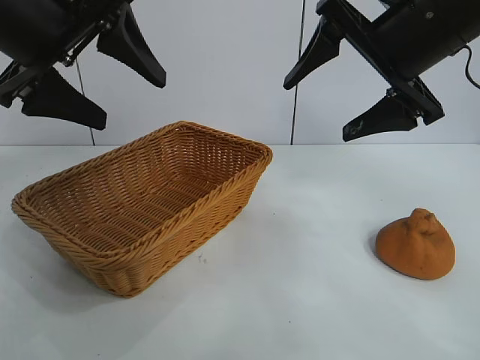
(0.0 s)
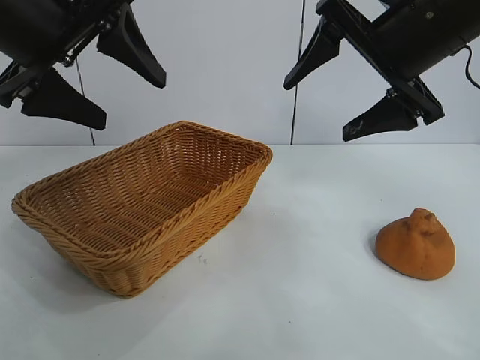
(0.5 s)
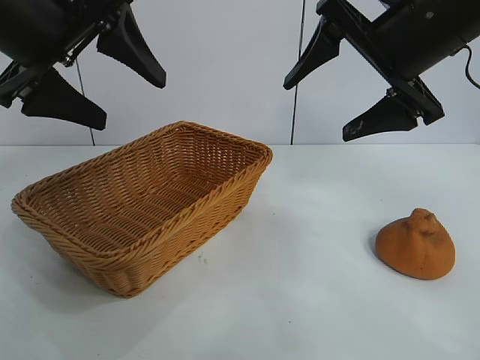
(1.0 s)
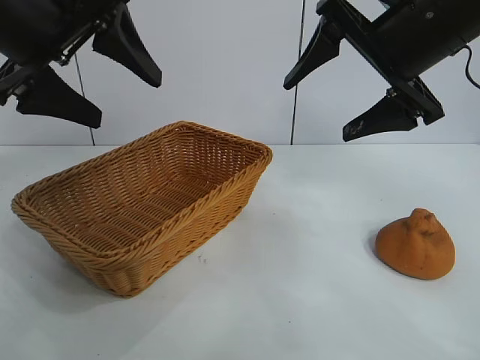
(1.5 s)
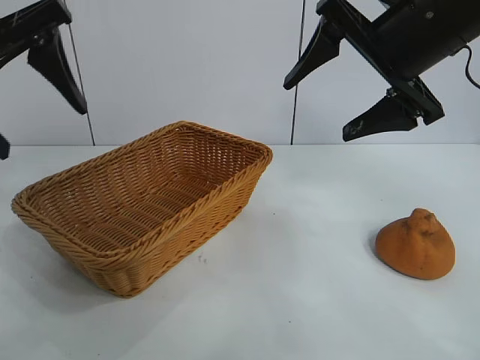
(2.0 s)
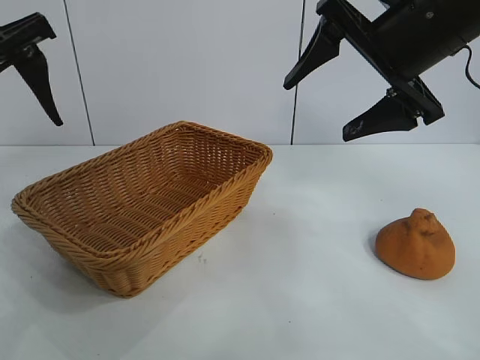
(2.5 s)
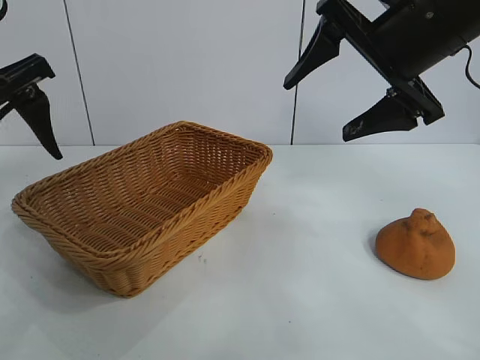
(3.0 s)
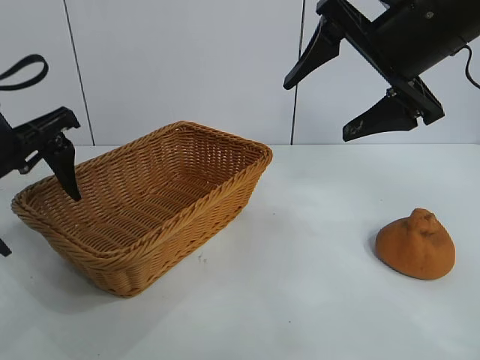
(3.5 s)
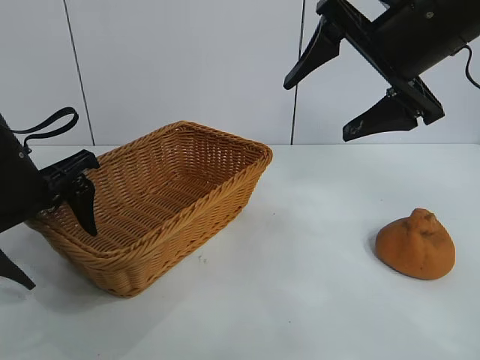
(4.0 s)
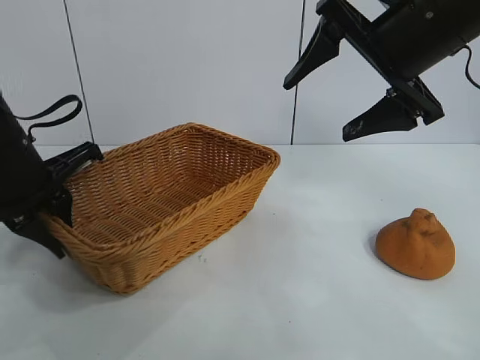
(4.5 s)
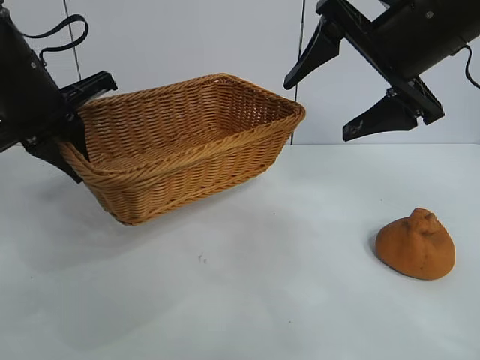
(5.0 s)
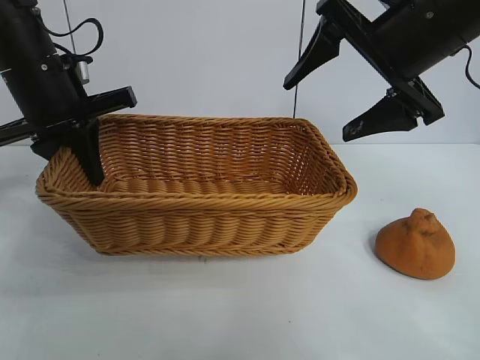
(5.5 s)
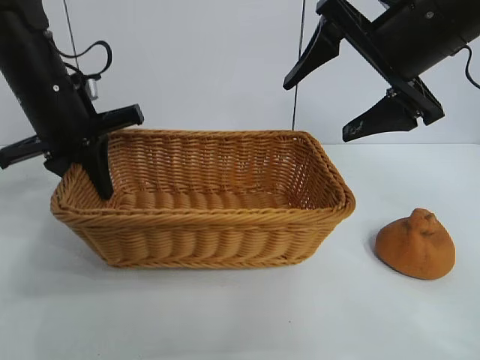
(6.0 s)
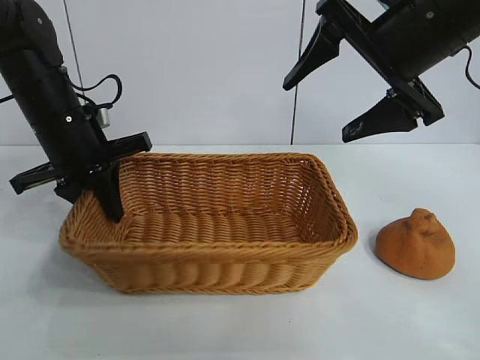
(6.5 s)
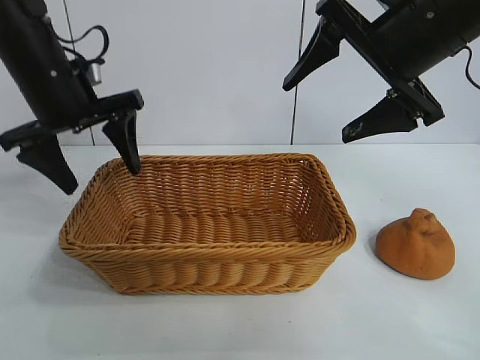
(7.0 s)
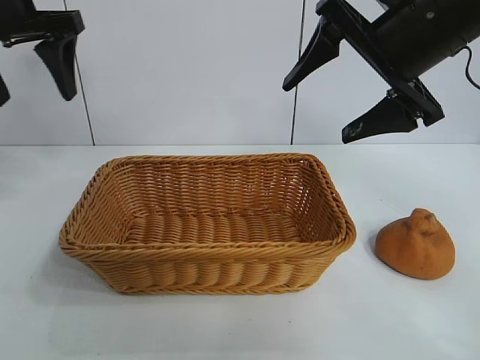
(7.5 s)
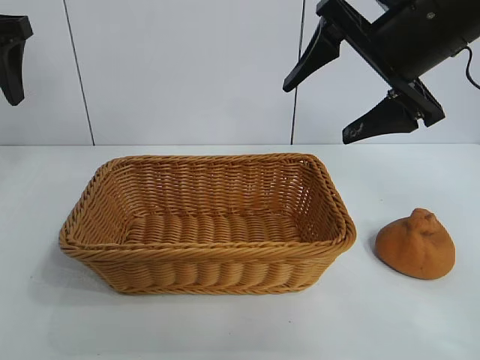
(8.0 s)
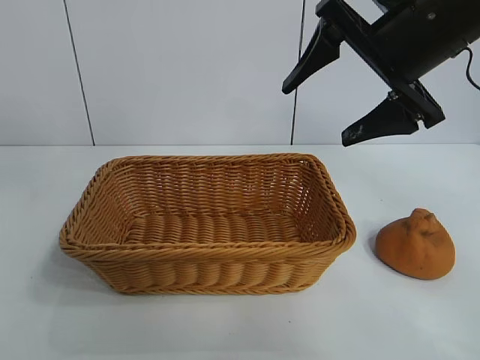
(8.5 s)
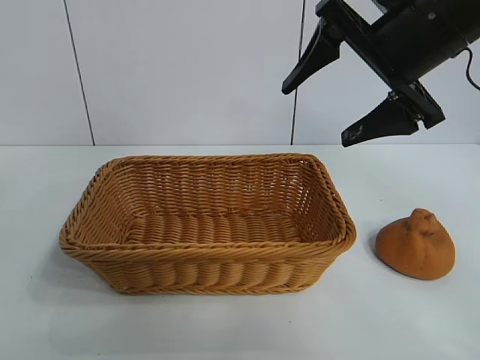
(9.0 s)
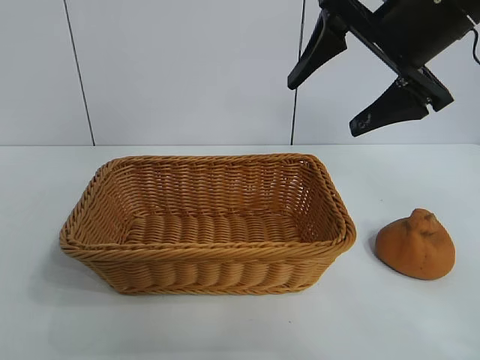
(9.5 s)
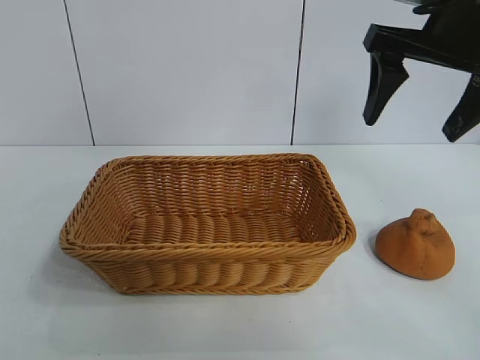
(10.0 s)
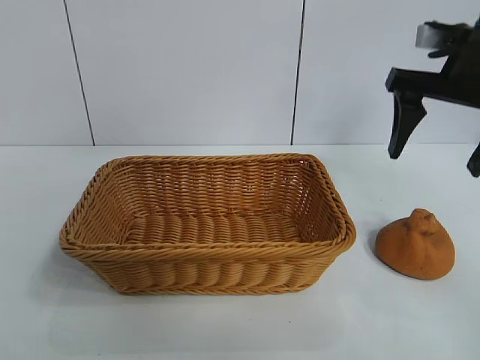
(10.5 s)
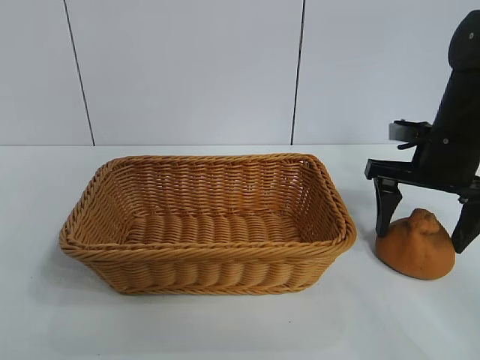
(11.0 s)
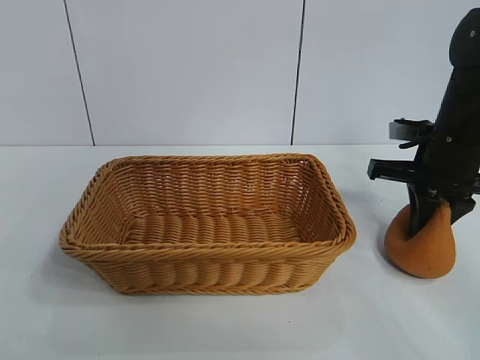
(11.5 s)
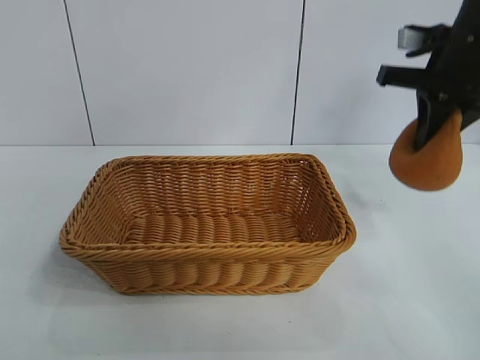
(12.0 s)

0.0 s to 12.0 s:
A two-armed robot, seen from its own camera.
Task of the whole recording: pick up the orange and put it into the basket.
Step, 1.5 to 4.0 s: Grasp the basket with left gripper.
Step, 4.5 to 6.5 s: Place the basket in the center of view with left gripper.
Step, 7.0 to 11.5 s: Grasp the orange with right gripper.

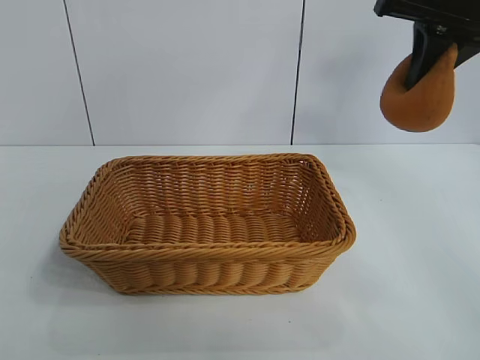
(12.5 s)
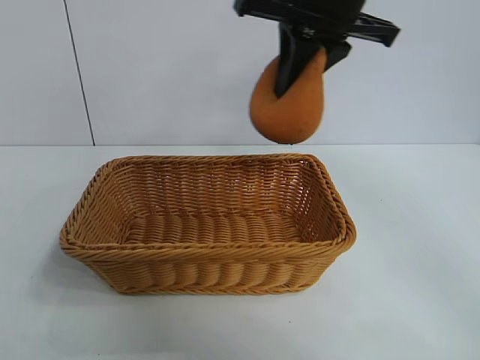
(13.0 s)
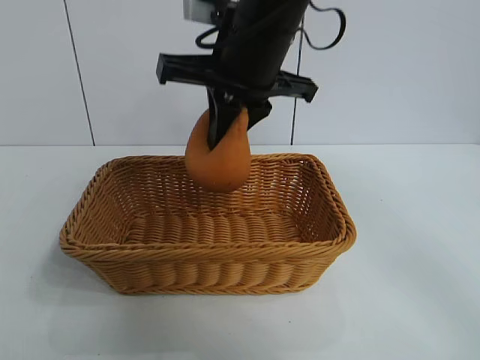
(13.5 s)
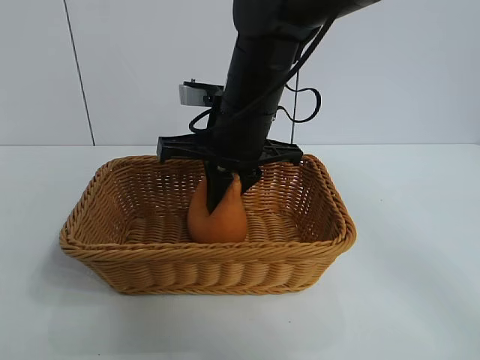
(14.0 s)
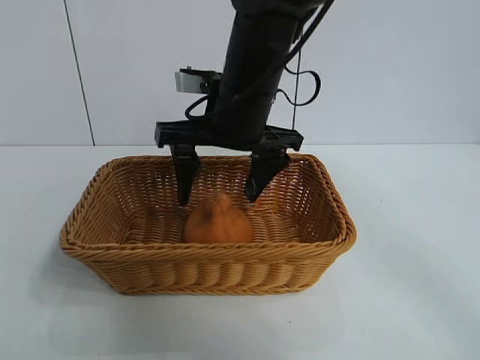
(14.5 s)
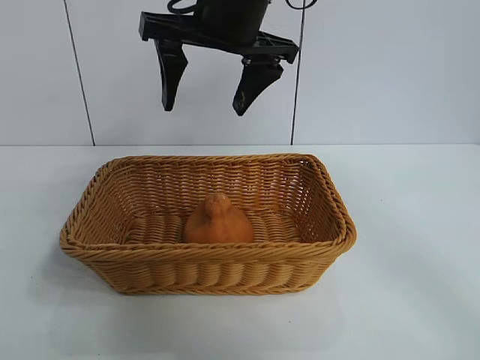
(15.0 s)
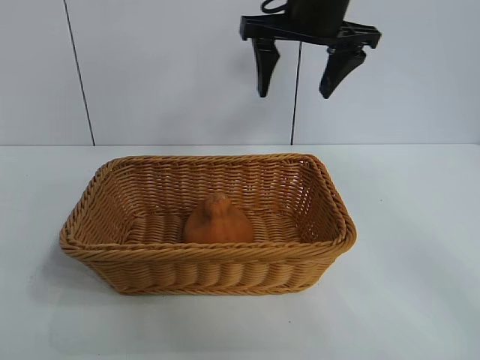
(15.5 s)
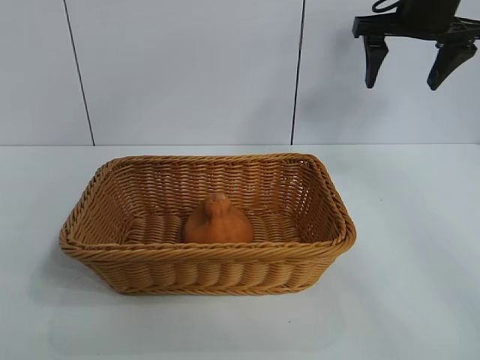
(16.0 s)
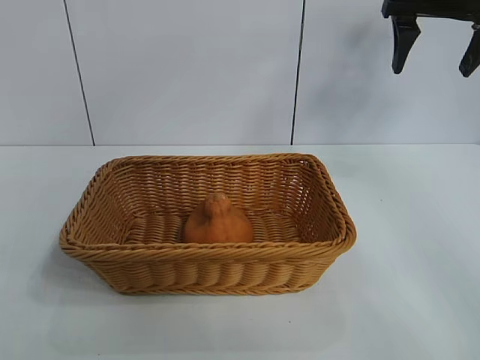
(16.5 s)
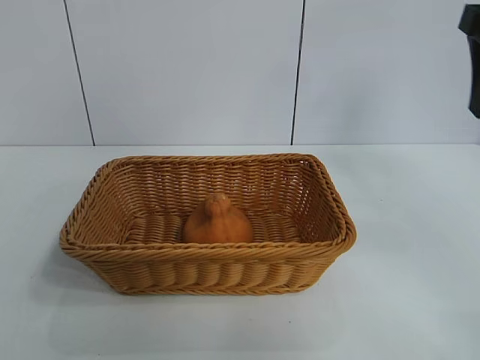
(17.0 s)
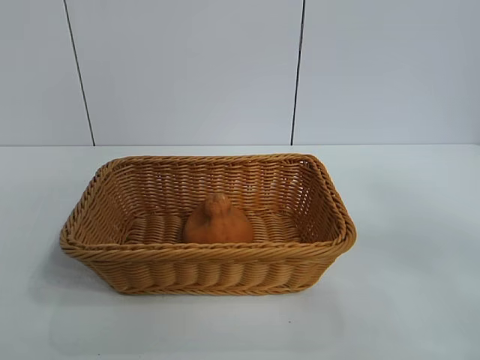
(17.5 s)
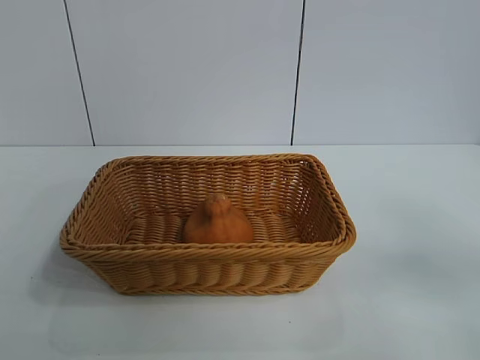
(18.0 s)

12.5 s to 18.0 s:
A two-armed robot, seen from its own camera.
Task of the whole recording: pick up the orange and put it into the basket.
Step, 12.5 to 14.5 s: Place the orange in the basket with right gripper.

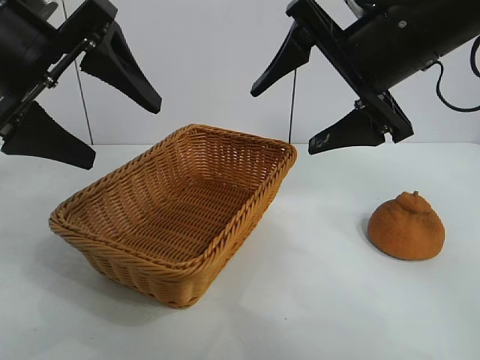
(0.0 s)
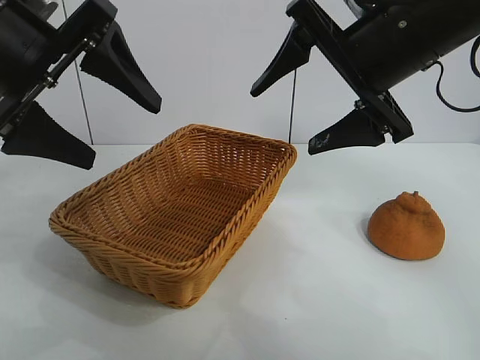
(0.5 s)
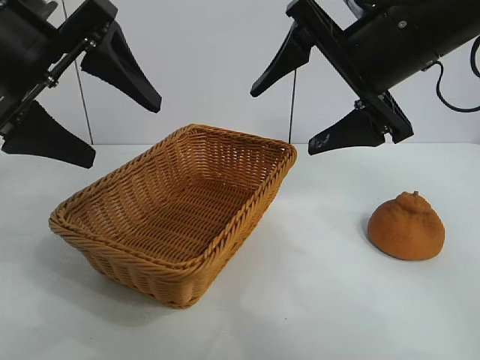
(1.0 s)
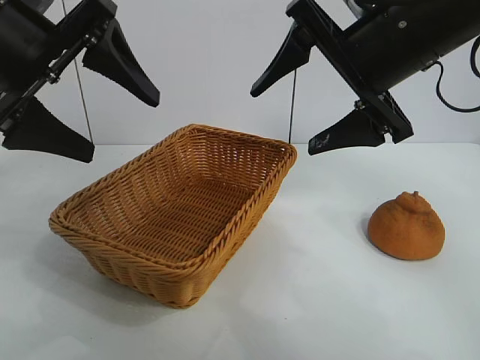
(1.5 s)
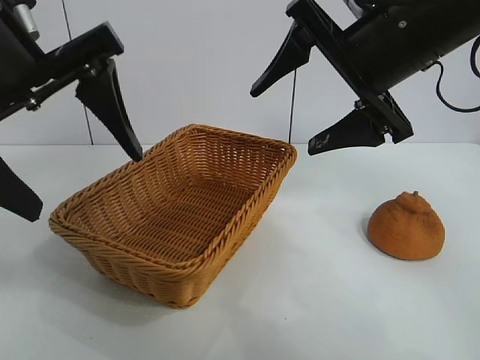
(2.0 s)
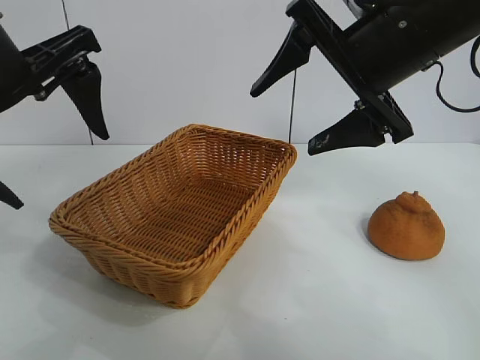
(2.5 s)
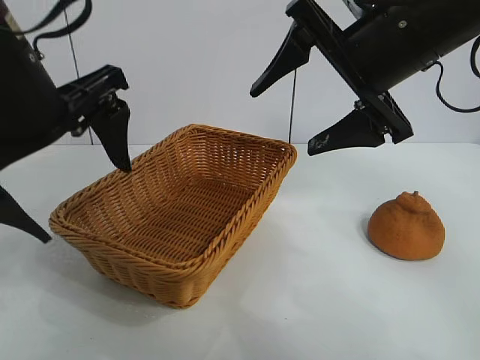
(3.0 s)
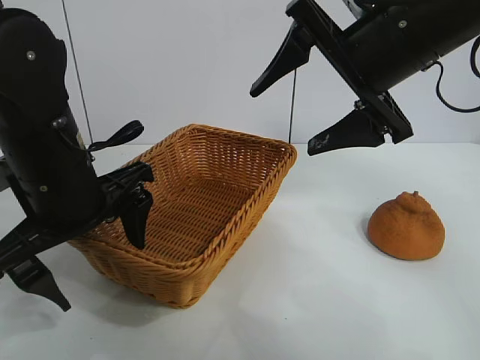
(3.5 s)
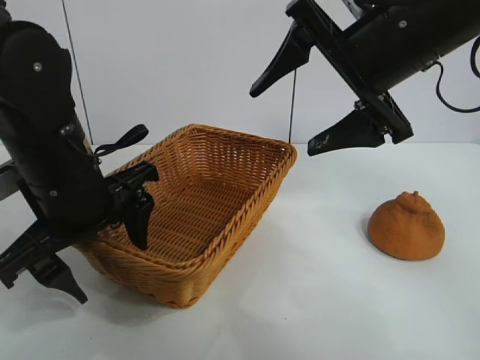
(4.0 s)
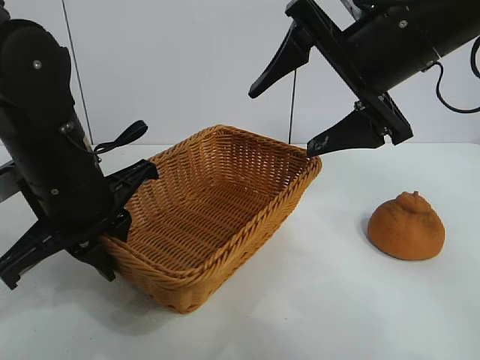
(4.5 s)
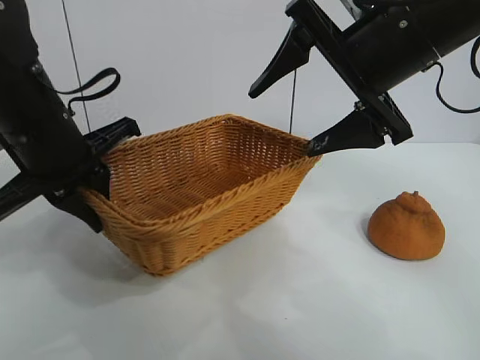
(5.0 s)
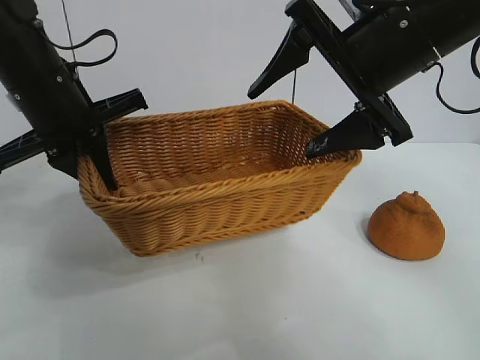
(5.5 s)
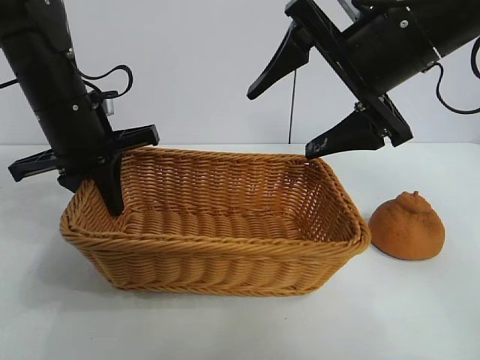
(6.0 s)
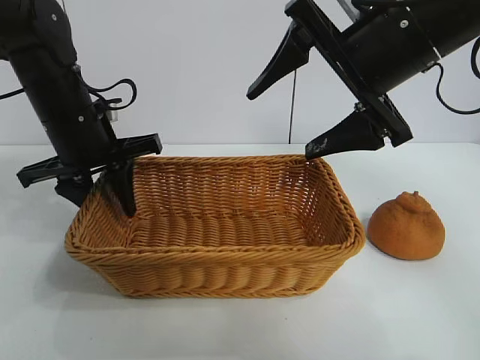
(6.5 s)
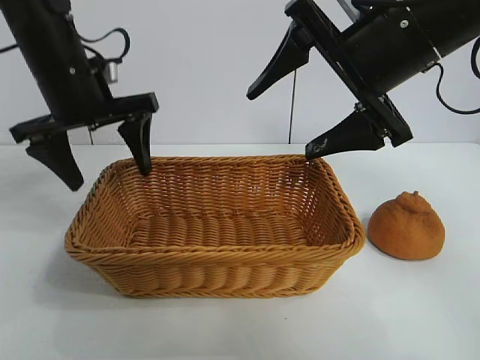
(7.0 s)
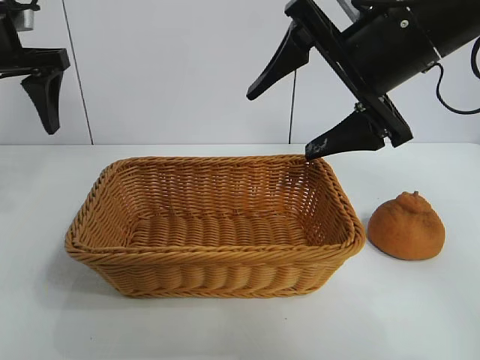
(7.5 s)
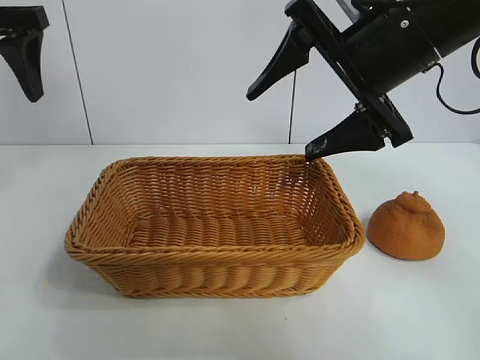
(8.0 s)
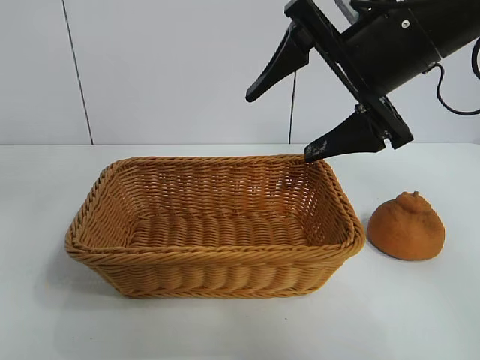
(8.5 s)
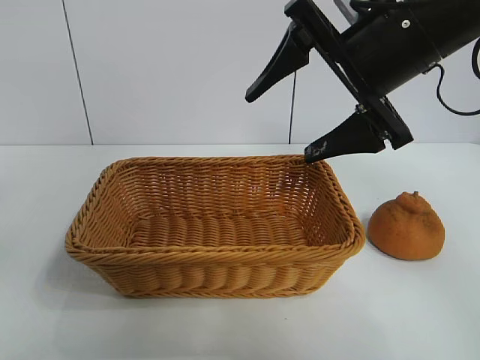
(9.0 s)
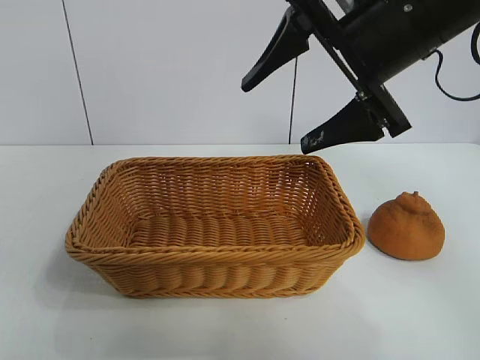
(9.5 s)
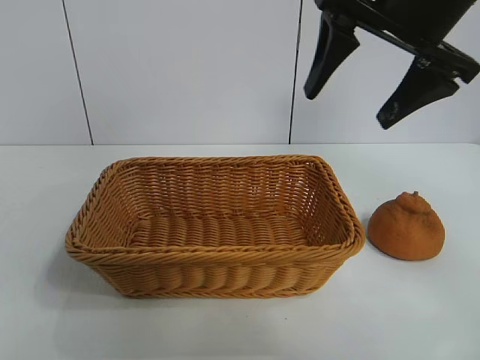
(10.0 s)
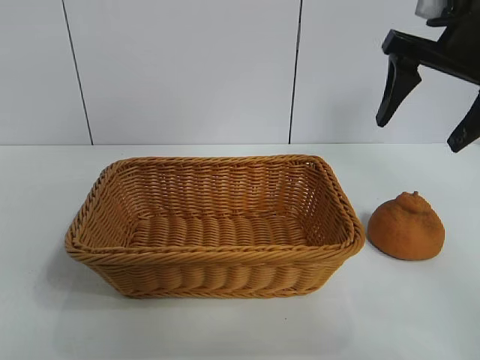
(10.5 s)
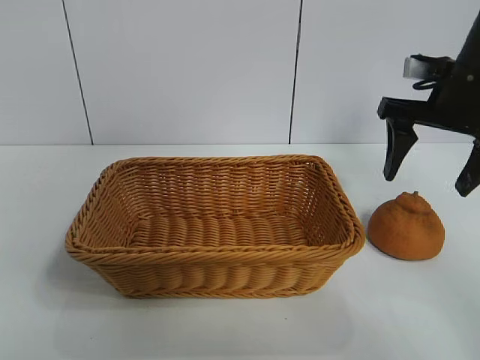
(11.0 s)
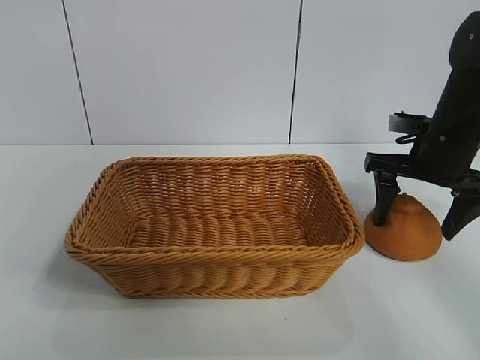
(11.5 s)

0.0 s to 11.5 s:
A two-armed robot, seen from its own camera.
Task of the whole recording: pick up the orange and put it into the basket.
Step, 1.0 to 4.5 s: Grasp the basket with left gripper.
Step, 5.0 to 6.5 s: Place the basket in the center of view with left gripper.
